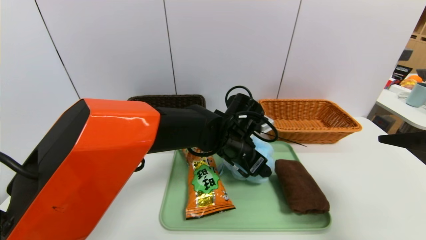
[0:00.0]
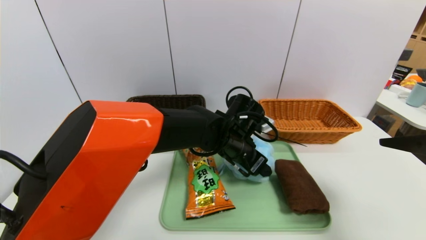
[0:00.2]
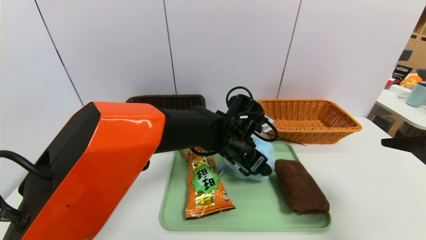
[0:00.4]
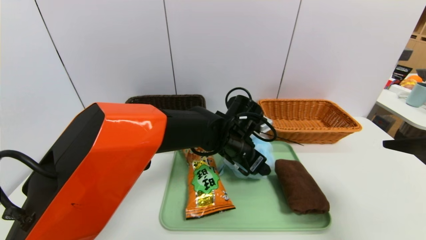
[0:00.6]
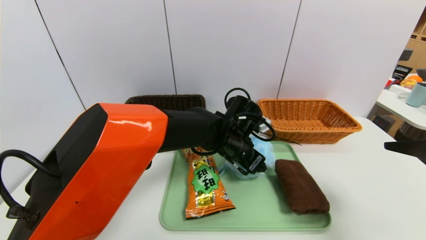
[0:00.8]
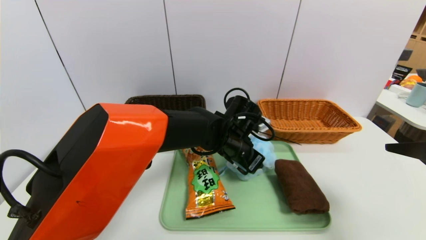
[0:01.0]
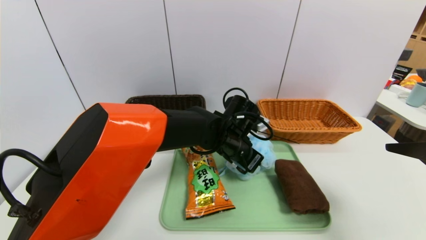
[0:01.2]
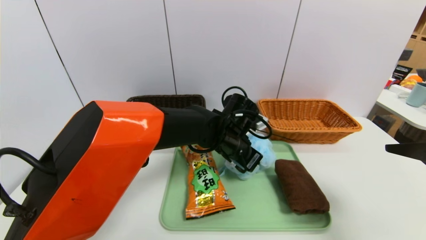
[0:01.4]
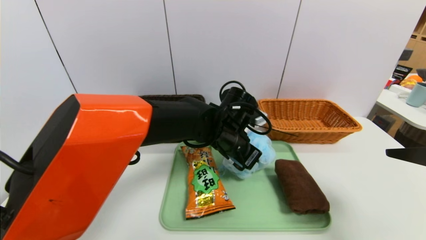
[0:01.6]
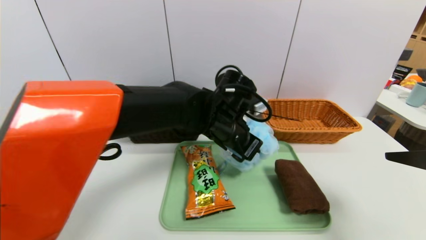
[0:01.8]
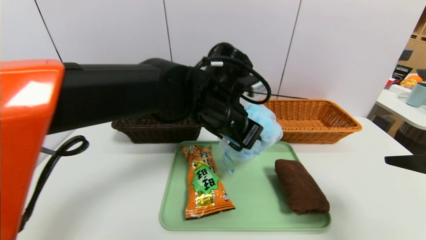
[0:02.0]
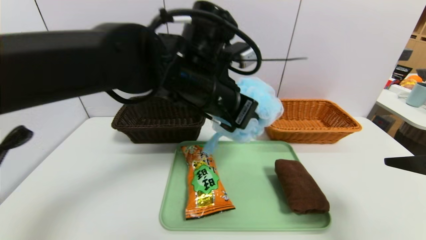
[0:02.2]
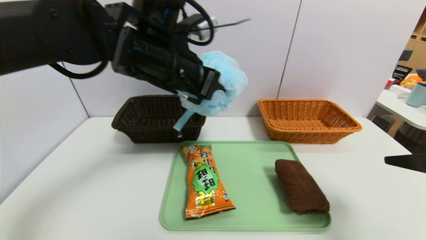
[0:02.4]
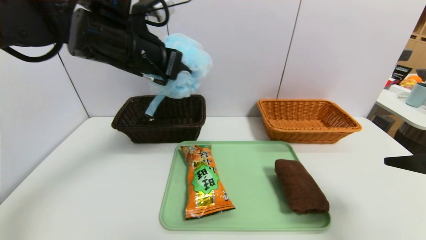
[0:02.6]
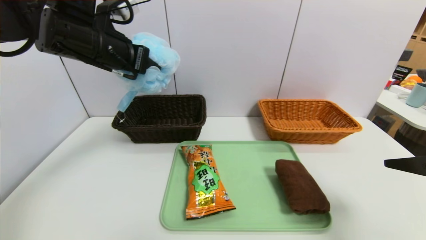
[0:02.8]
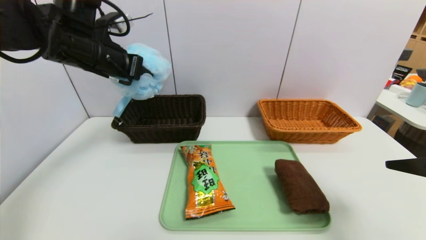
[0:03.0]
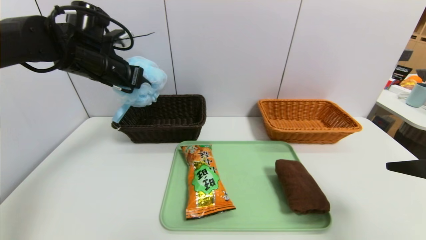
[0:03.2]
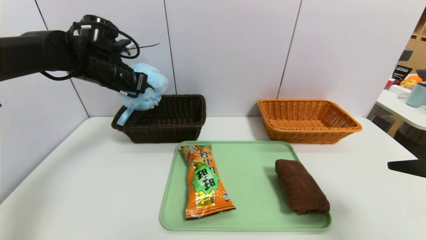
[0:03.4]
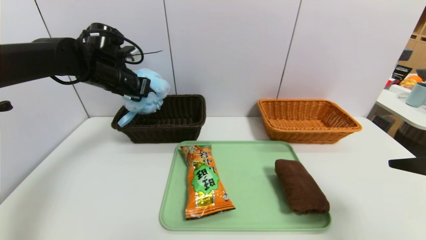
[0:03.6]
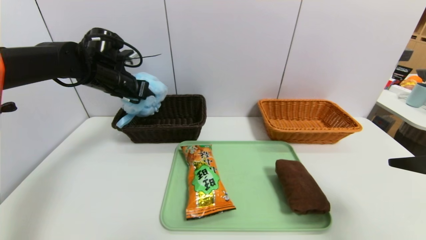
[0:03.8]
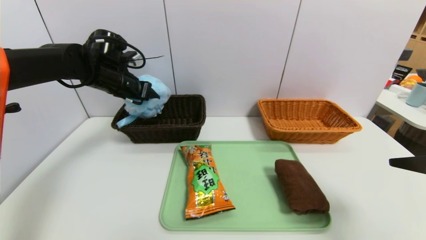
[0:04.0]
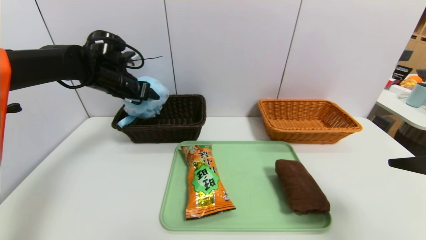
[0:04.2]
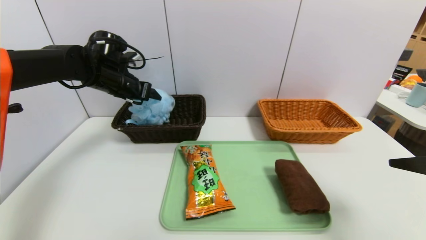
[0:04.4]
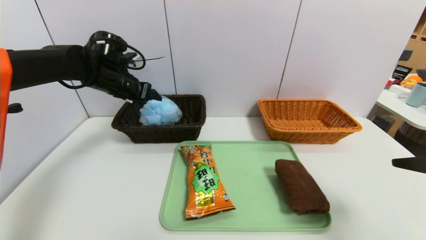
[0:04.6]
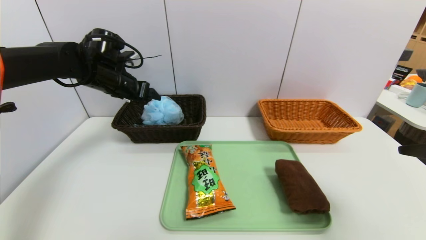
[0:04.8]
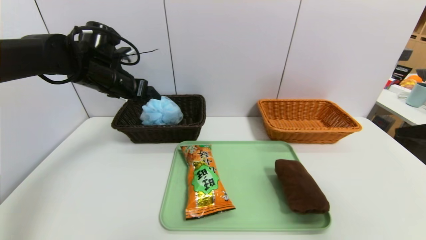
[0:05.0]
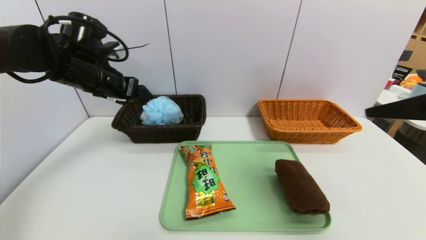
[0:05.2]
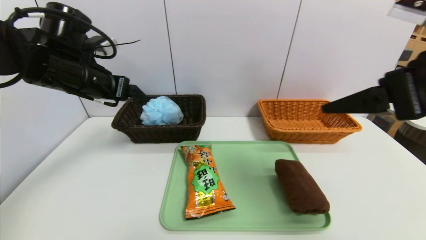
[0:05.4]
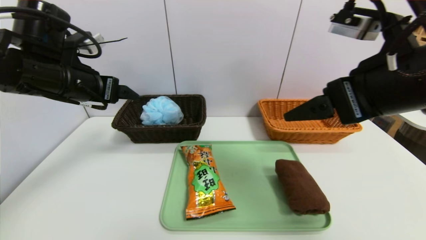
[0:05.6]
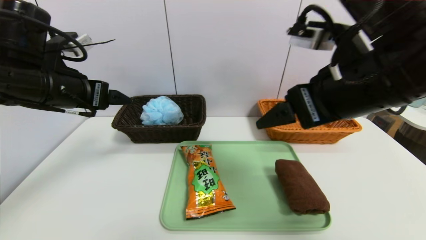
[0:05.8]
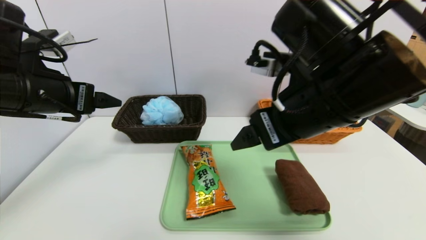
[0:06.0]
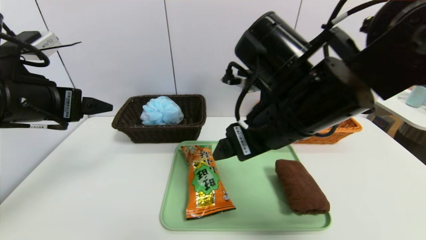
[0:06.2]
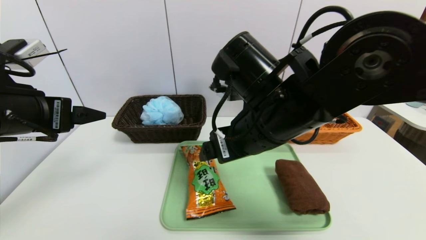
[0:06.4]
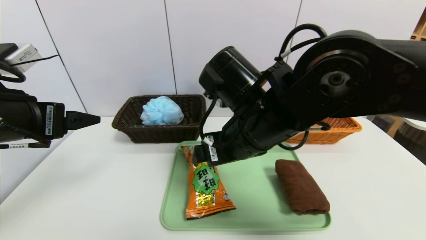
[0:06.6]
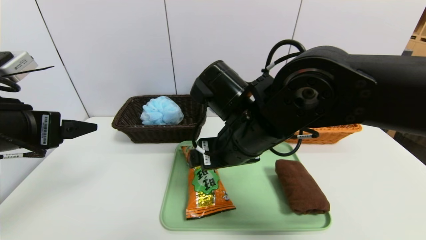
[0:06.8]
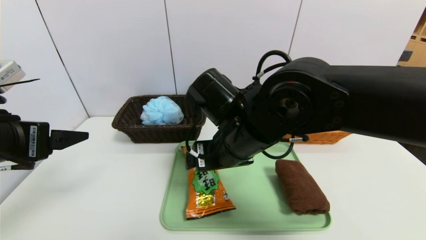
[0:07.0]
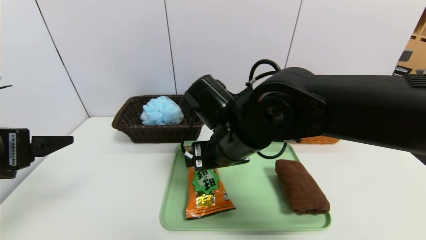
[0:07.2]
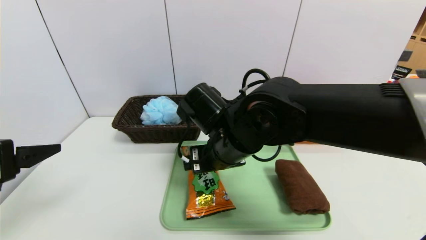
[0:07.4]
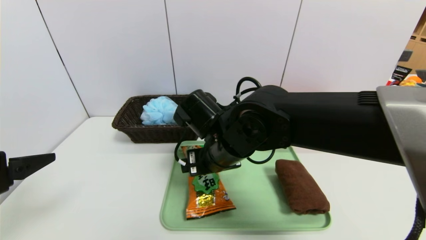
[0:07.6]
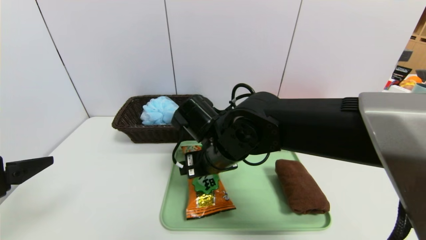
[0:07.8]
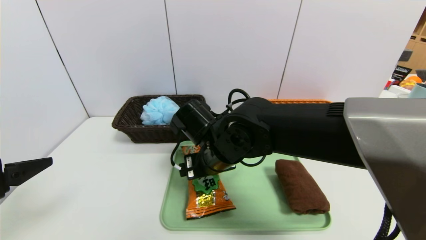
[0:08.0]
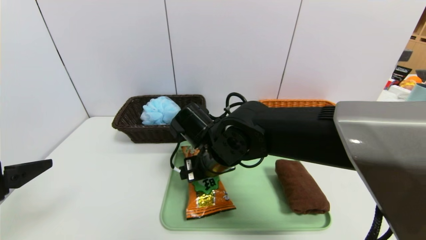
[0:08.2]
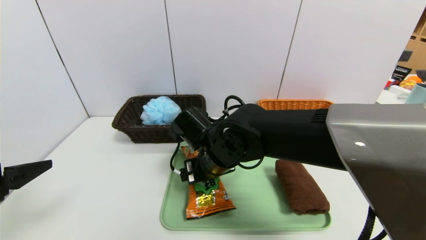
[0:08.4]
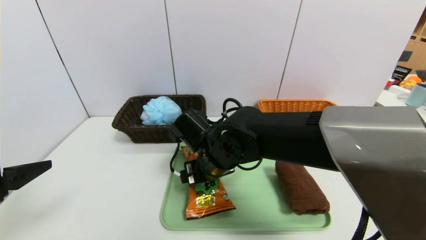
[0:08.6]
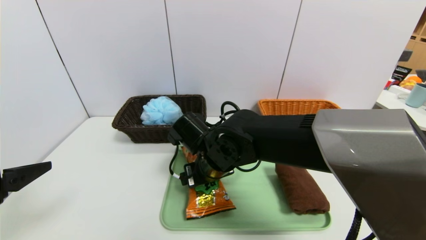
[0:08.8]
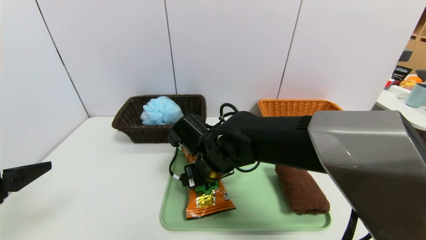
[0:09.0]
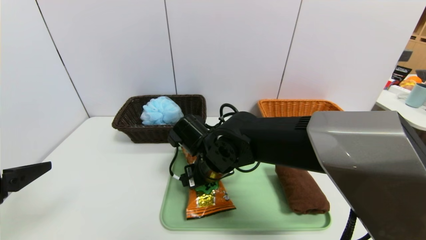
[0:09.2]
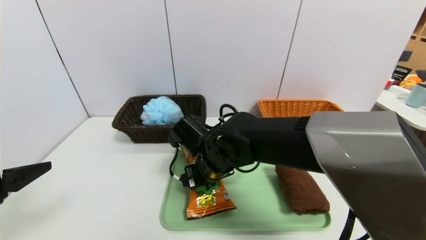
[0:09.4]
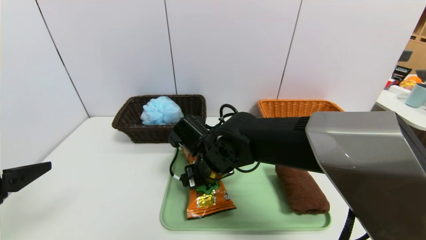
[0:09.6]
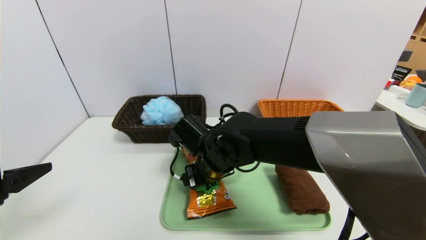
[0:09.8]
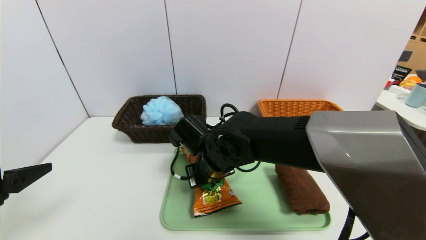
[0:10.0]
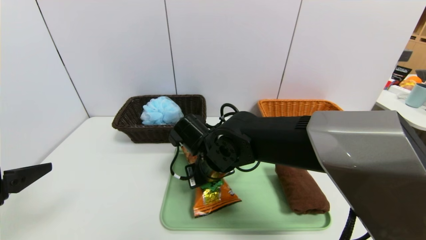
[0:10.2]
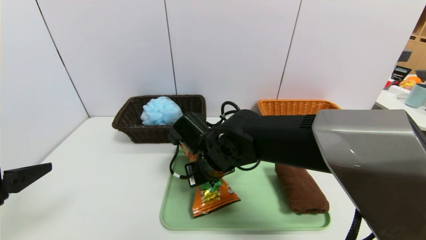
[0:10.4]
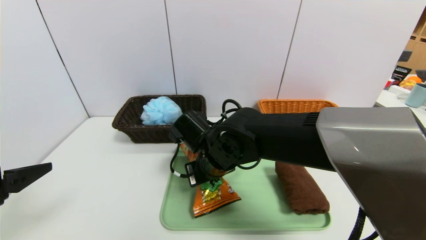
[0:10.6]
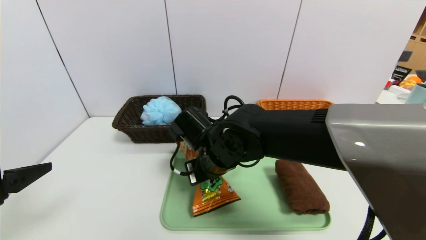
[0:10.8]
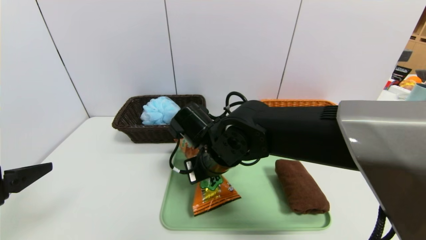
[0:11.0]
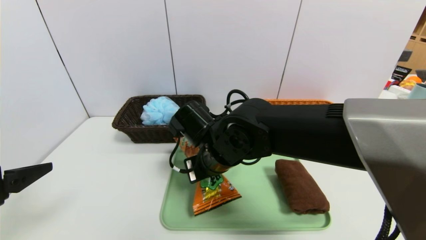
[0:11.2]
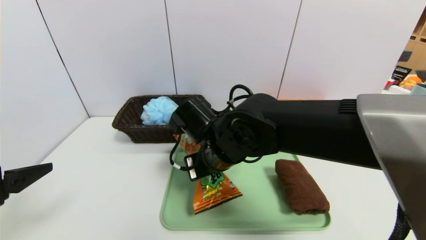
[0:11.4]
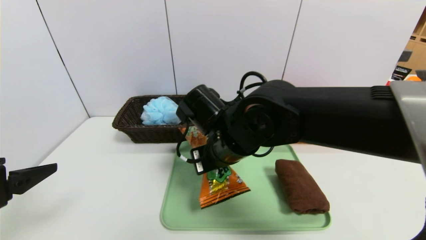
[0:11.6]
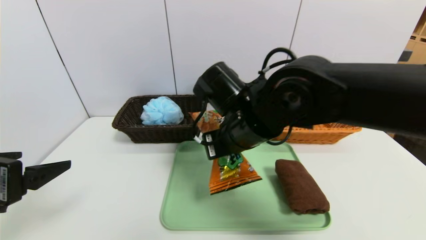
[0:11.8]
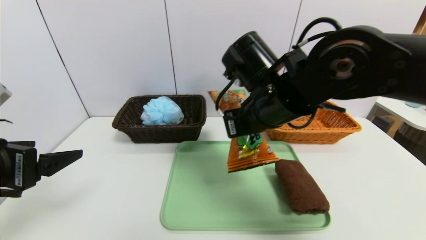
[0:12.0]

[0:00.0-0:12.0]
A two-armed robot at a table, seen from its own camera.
Task of the whole recording: place the food in the right basket with the right gripper, and place the non food items in the left basket with the left gripper.
Step, 0:00.0 to 0:05.2: Grasp the shower sphere and put it in the left basket.
0:00.0 to 0:01.6: The left gripper closes.
0:01.6 to 0:03.0: The left gripper moves to the left and upward, some 30 cm.
0:03.0 to 0:04.4: The left gripper goes approximately 10 cm downward and forward, and opens its fingers.
0:04.4 to 0:06.0: The right gripper travels to the left and forward by approximately 25 cm, while the left gripper goes some 20 cm backward.
0:06.0 to 0:07.6: The right gripper travels downward, to the left and forward by some 15 cm. The left gripper heads backward, covering roughly 15 cm.
0:07.6 to 0:09.0: The right gripper travels downward by roughly 5 cm.
0:09.0 to 0:10.4: The right gripper closes.
0:10.4 to 0:12.0: The right gripper is displaced upward and to the right by some 15 cm.

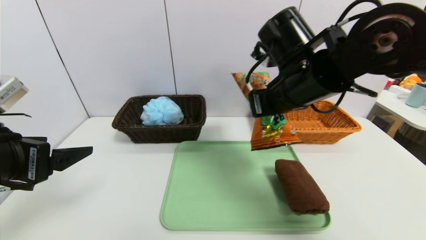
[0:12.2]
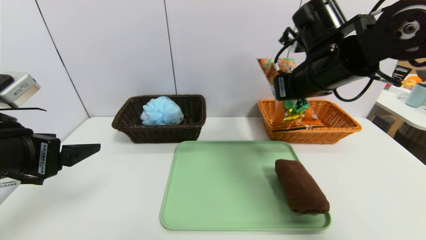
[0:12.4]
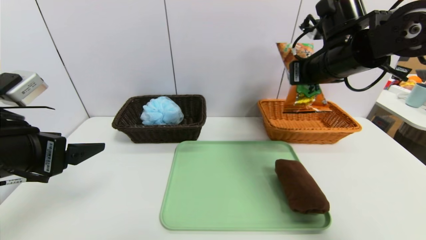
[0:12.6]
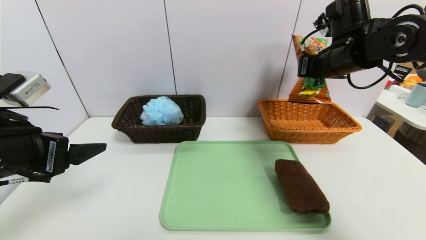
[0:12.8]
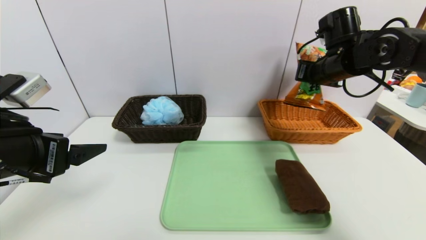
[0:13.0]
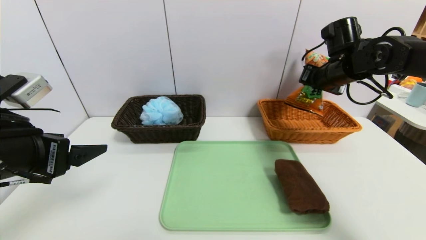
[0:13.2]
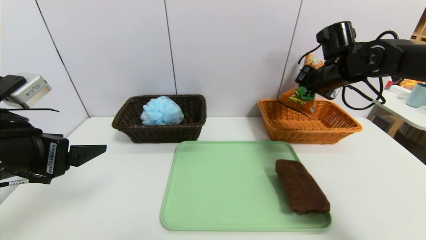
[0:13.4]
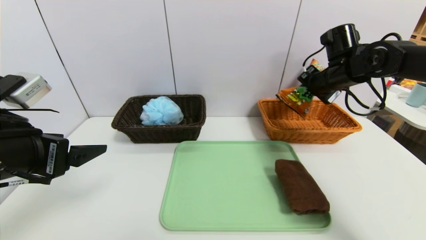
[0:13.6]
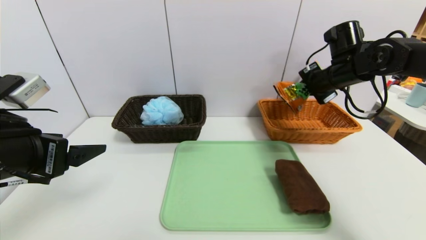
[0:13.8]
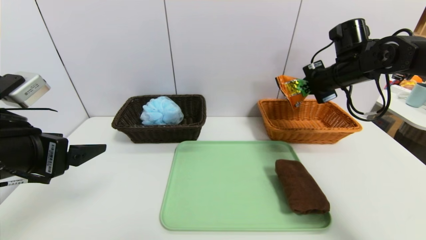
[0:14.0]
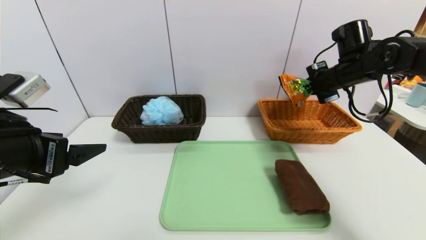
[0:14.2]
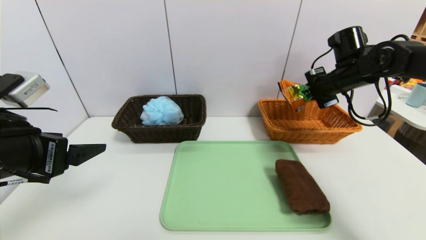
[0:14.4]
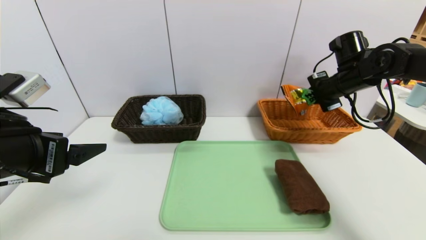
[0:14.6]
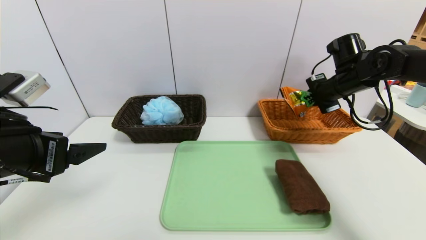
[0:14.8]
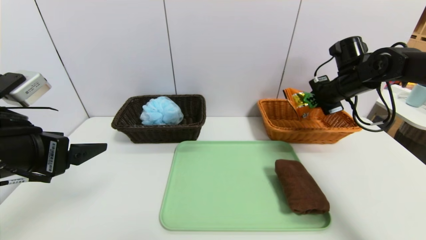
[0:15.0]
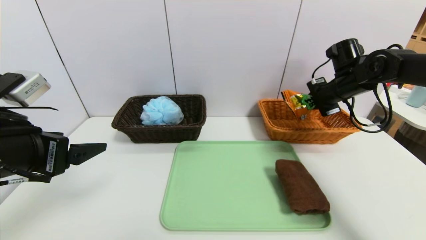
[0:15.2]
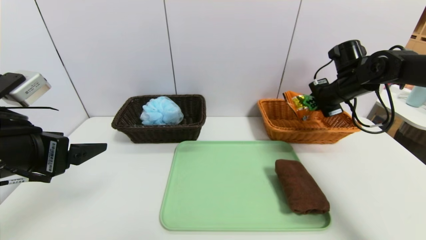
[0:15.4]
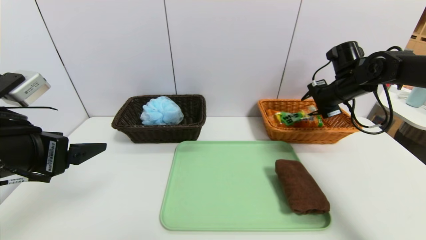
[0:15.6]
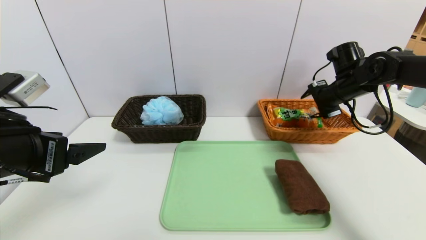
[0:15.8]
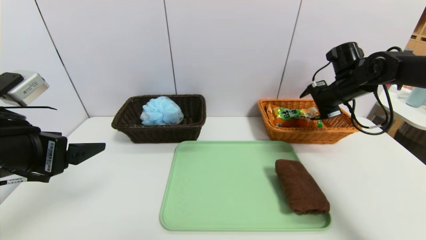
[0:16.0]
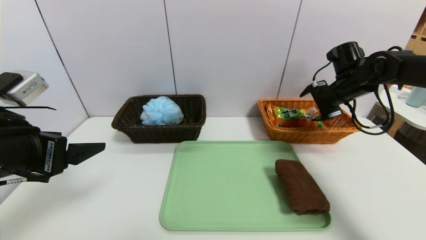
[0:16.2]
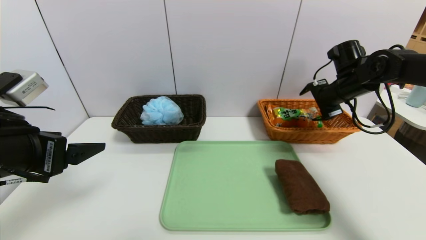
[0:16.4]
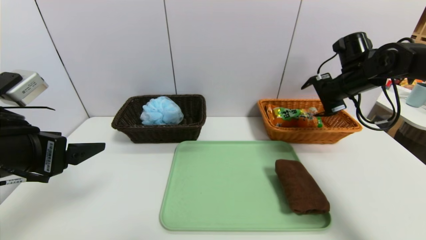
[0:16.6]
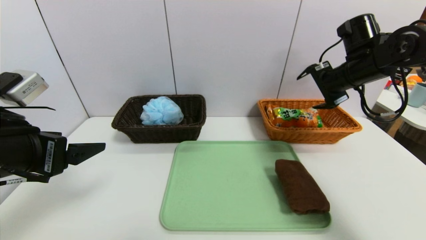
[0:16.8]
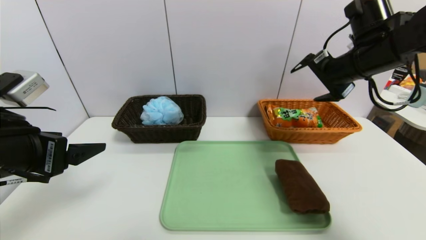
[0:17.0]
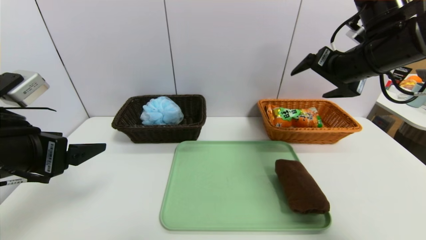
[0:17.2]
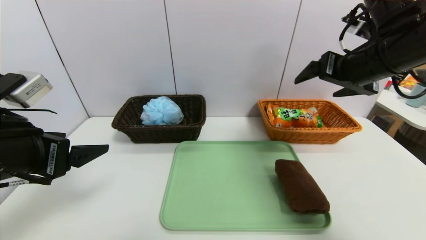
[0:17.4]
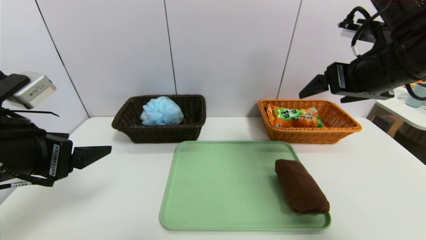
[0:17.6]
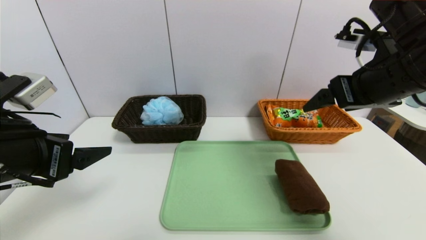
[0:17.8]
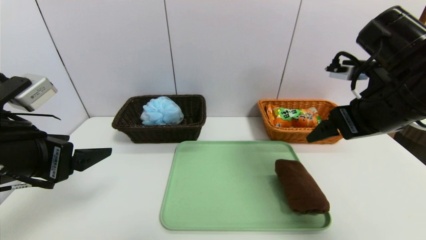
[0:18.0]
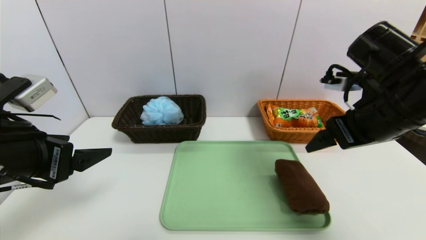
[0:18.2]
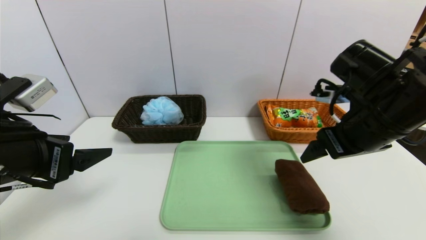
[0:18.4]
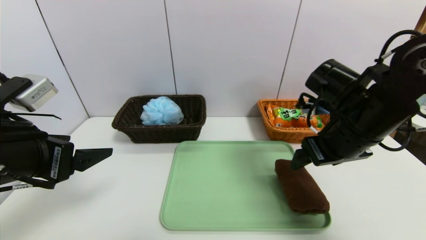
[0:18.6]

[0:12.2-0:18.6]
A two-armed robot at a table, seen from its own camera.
Task of the whole recording: place the food in the right basket with the right gripper, and place the non food items in the left basket with the left gripper.
Step, 0:12.2 to 0:15.8: Grasp the cookie and put it in the right basket.
0:12.2 to 0:13.8: The right gripper shifts roughly 20 cm to the right and forward.
0:13.8 to 0:15.4: The right gripper changes place by approximately 5 cm.
0:15.4 to 0:17.0: The right gripper is displaced upward and backward by about 10 cm, and opens its fingers.
0:17.0 to 0:18.6: The right gripper shifts roughly 10 cm backward and downward.
